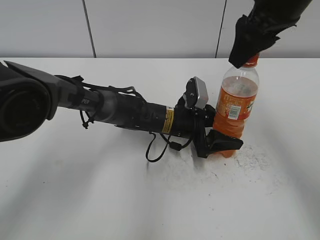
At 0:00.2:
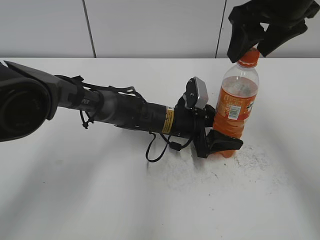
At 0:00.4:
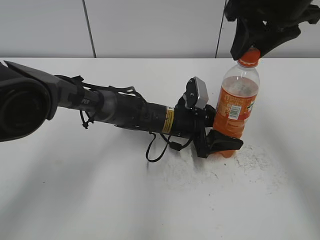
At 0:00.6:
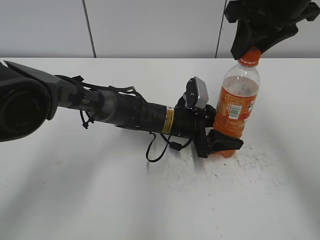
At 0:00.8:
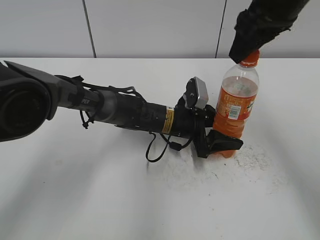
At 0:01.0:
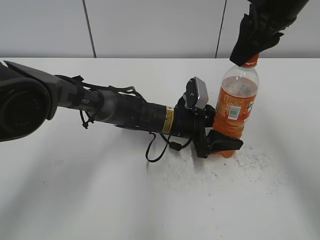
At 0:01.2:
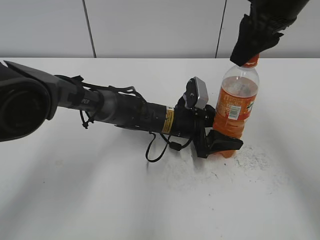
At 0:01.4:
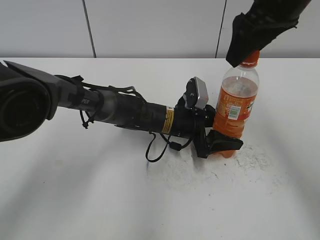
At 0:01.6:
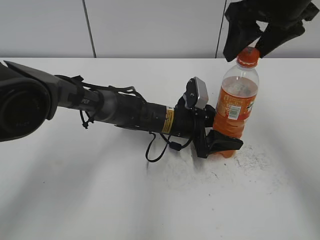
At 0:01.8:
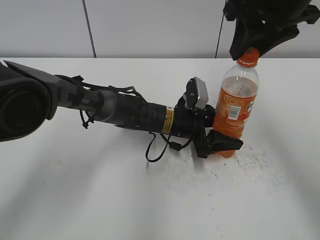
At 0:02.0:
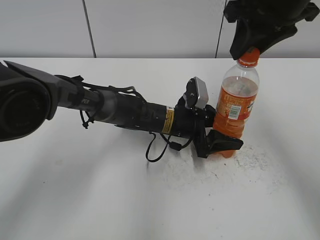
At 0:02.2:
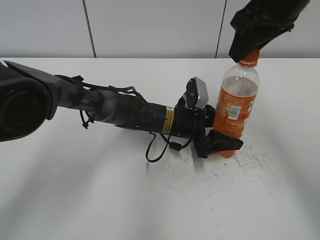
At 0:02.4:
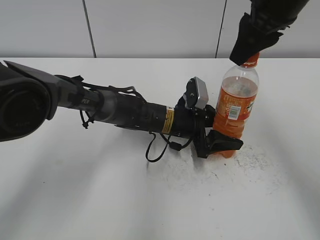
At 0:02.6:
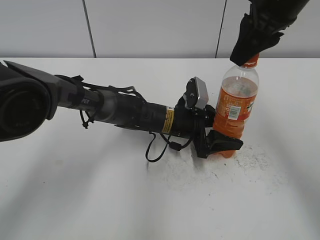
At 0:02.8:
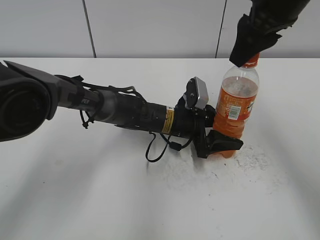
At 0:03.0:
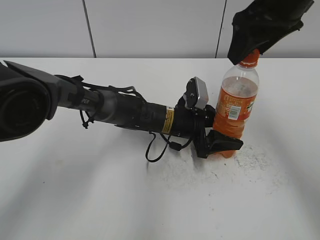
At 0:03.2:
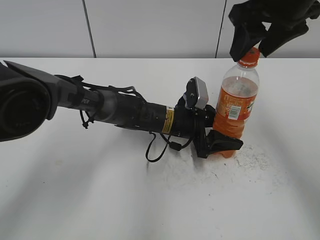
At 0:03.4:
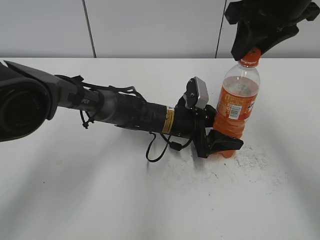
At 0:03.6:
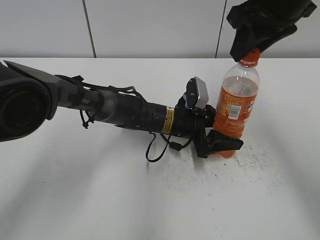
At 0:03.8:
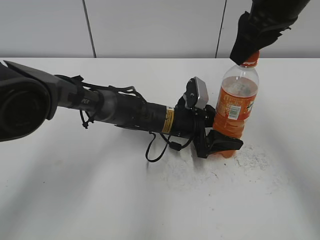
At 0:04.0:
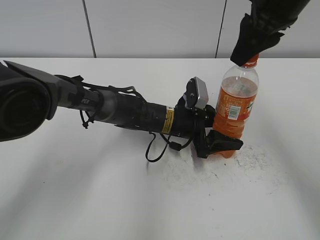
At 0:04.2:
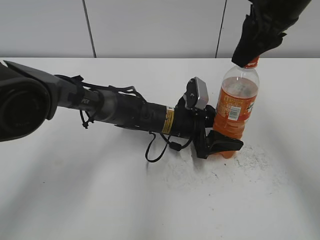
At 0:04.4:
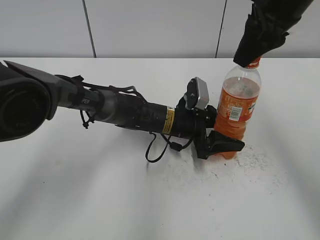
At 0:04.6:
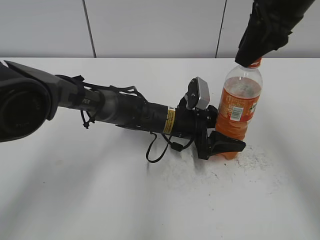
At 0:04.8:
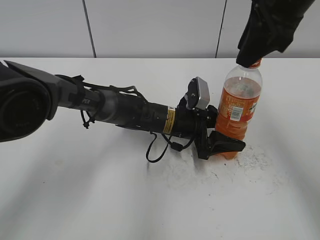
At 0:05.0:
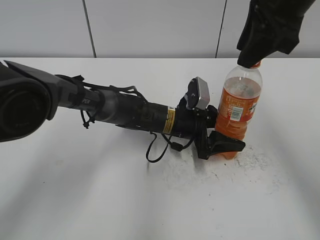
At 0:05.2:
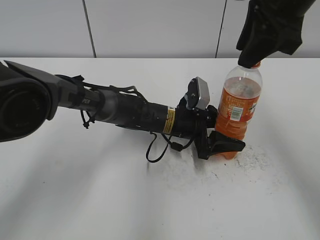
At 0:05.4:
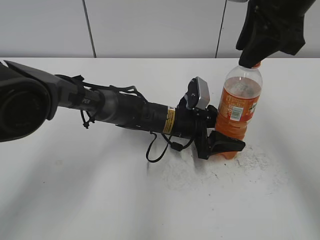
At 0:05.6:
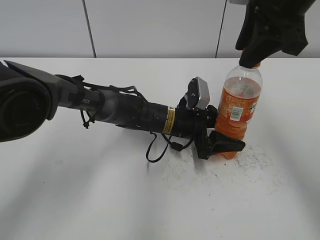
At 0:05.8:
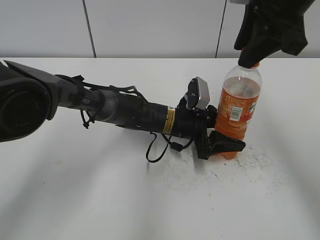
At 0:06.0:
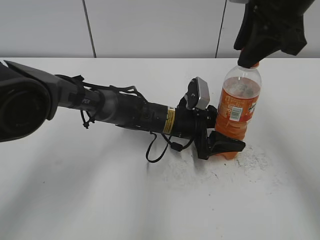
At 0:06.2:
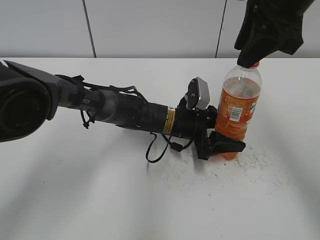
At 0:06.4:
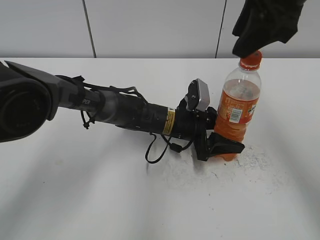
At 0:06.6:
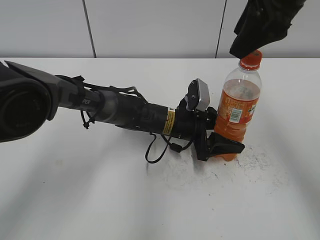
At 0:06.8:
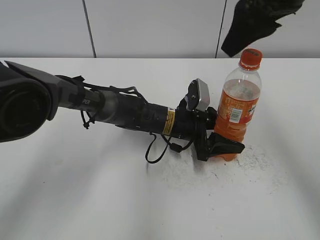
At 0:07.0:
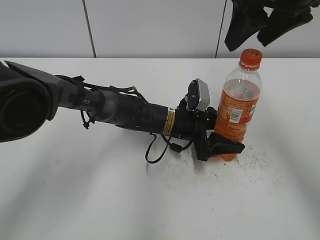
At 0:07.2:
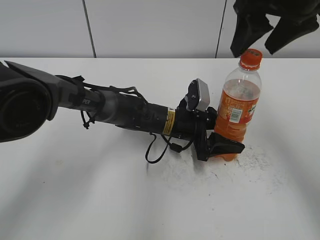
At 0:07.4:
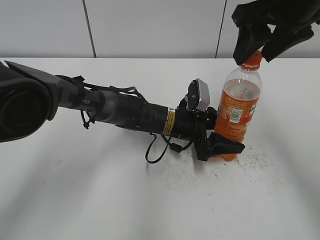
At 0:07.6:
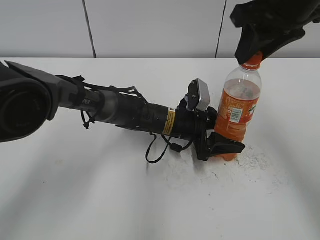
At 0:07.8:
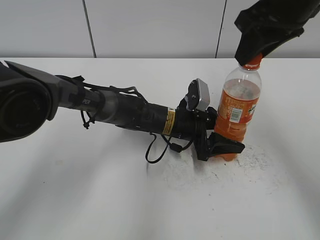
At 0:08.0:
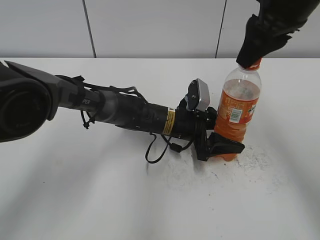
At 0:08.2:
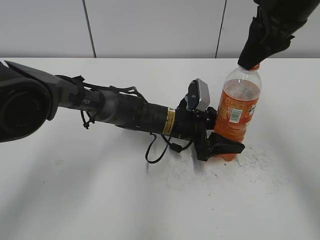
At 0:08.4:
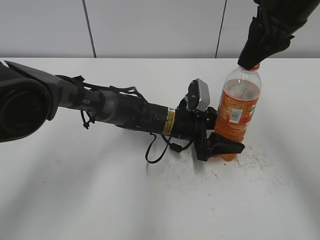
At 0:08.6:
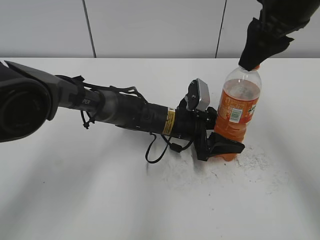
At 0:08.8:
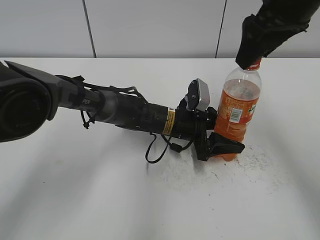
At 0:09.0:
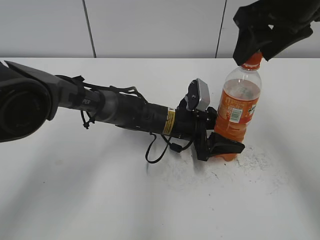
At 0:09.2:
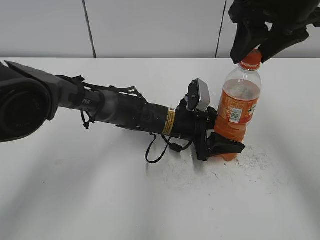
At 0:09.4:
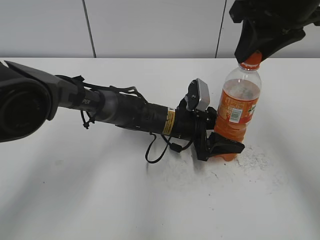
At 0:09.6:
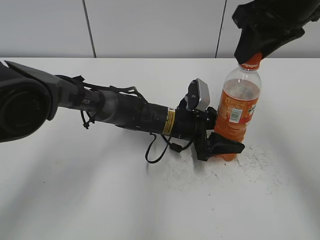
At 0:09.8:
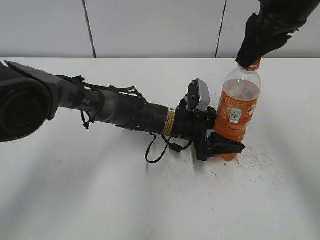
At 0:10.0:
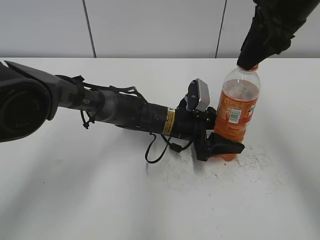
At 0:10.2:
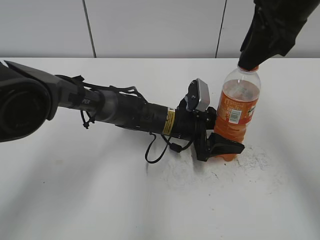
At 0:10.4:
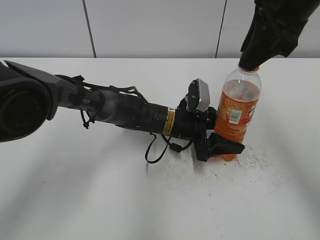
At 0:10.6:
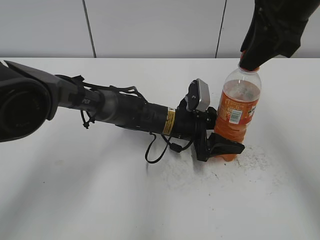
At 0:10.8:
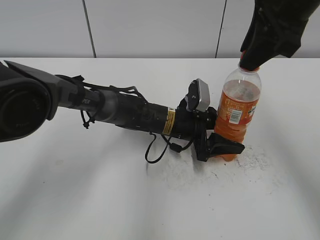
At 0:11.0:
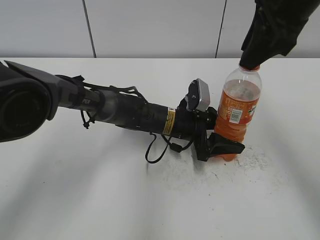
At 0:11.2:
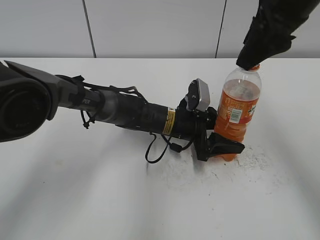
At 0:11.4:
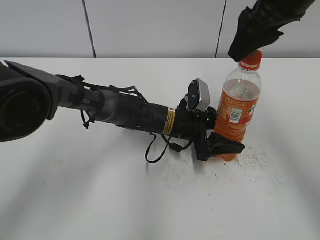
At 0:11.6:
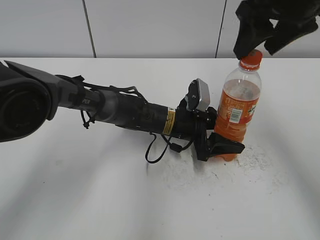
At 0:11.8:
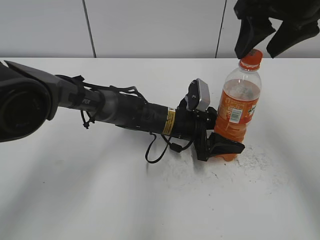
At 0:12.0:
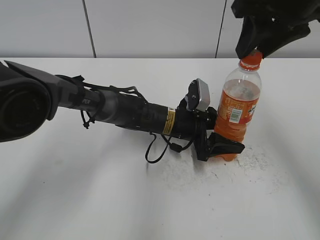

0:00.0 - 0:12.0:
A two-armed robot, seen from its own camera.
0:00.0 - 0:01.6: The right gripper closes and opens again.
0:01.6 - 0:03.0: The right gripper closes, then opens again.
0:03.0 - 0:04.4: The right gripper closes.
0:06.0 - 0:07.6: The right gripper opens and closes again.
0:07.6 - 0:09.0: The right gripper opens up.
0:09.0 - 0:10.4: The right gripper closes.
0:10.4 - 0:12.0: The right gripper opens its fingers.

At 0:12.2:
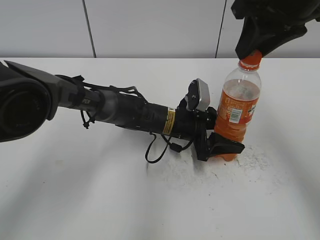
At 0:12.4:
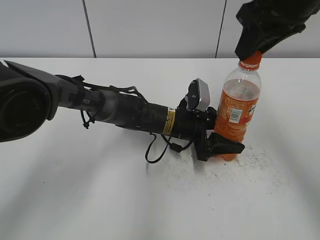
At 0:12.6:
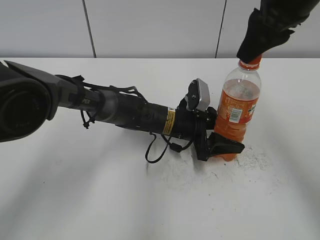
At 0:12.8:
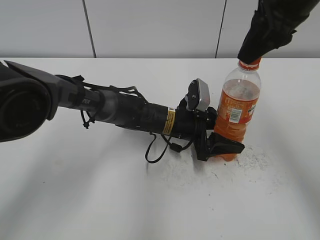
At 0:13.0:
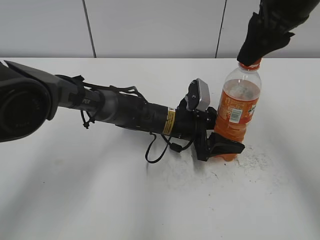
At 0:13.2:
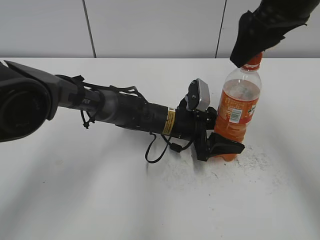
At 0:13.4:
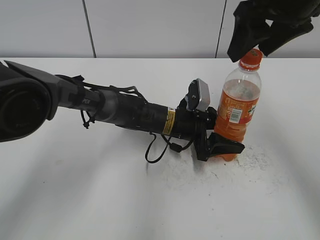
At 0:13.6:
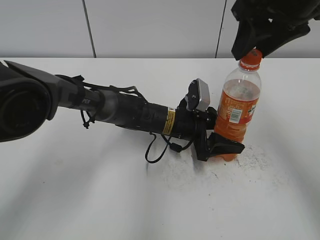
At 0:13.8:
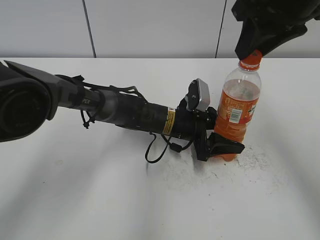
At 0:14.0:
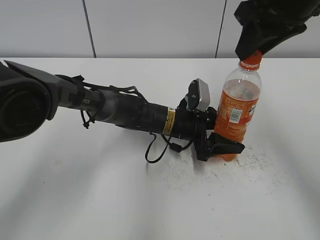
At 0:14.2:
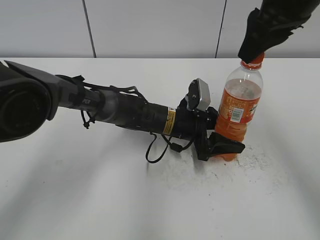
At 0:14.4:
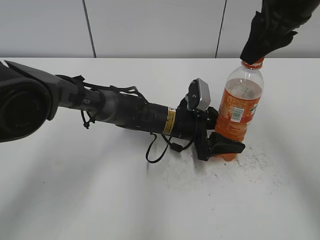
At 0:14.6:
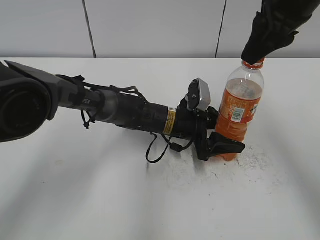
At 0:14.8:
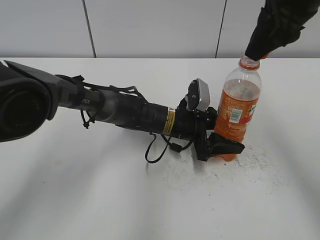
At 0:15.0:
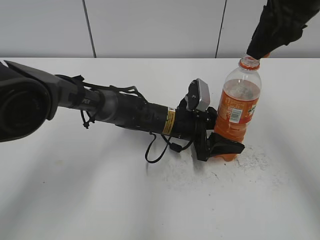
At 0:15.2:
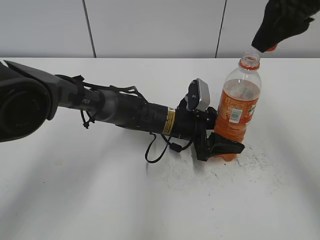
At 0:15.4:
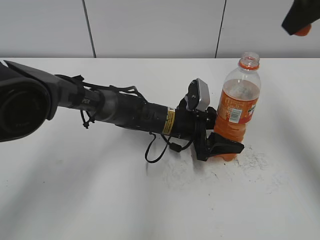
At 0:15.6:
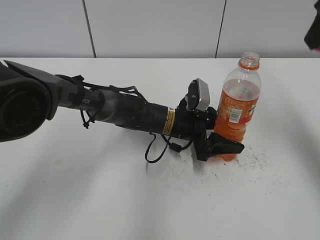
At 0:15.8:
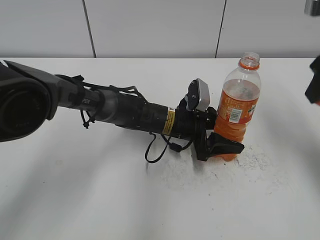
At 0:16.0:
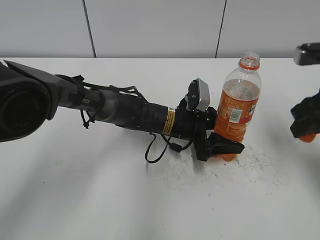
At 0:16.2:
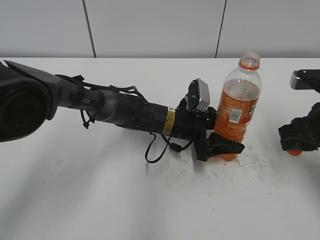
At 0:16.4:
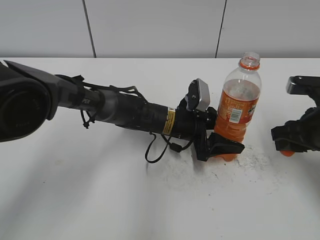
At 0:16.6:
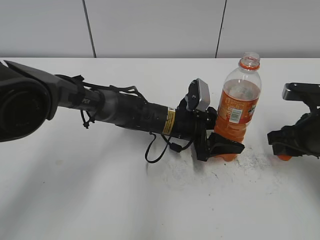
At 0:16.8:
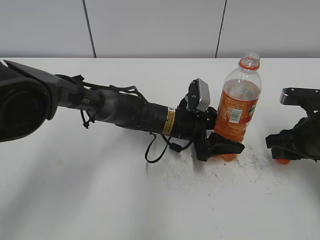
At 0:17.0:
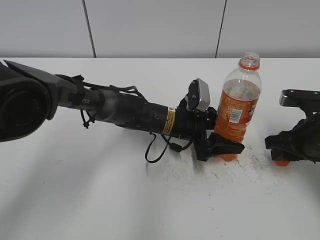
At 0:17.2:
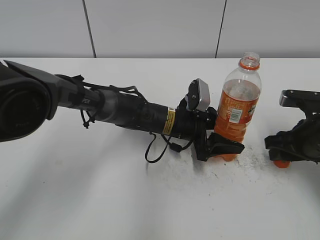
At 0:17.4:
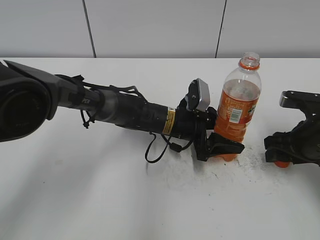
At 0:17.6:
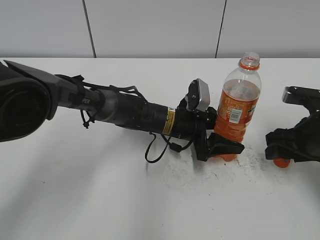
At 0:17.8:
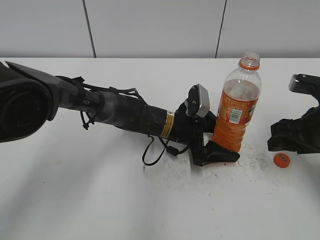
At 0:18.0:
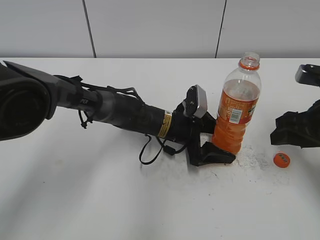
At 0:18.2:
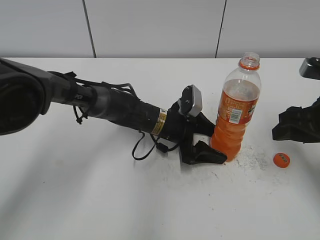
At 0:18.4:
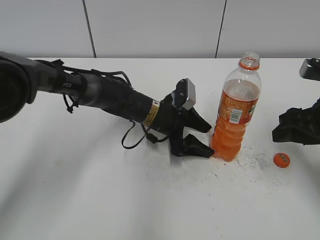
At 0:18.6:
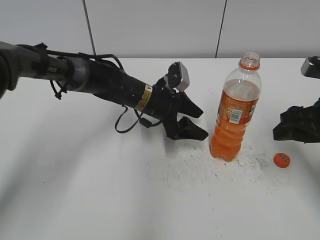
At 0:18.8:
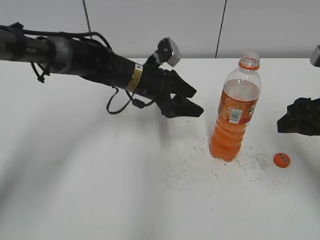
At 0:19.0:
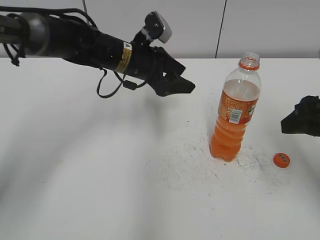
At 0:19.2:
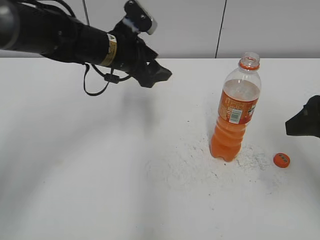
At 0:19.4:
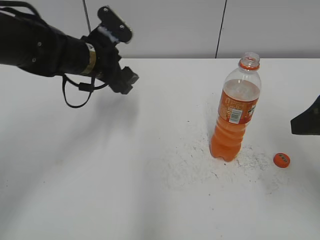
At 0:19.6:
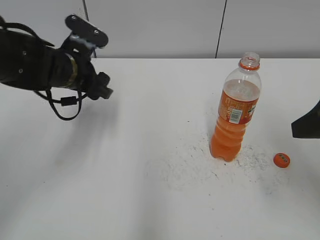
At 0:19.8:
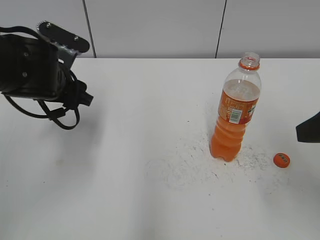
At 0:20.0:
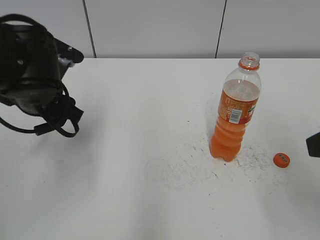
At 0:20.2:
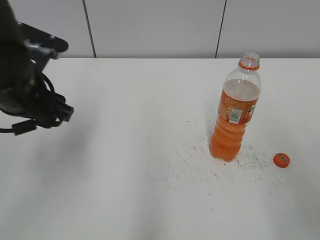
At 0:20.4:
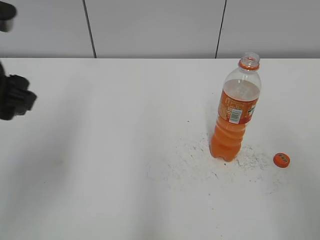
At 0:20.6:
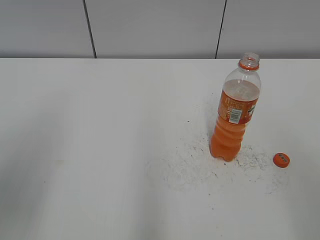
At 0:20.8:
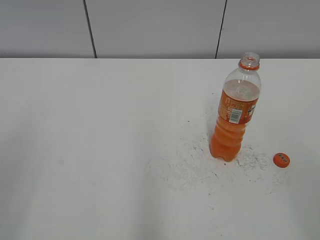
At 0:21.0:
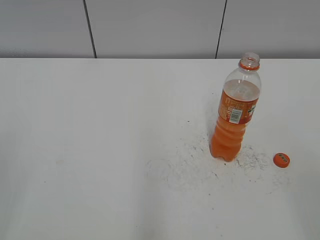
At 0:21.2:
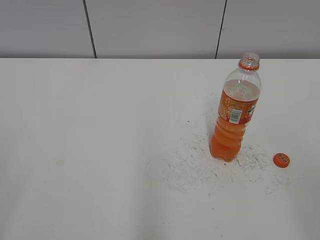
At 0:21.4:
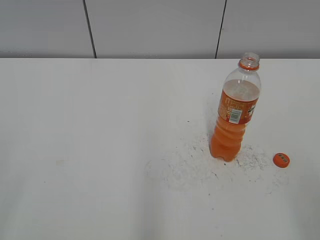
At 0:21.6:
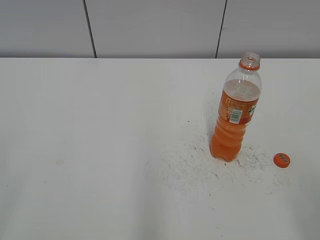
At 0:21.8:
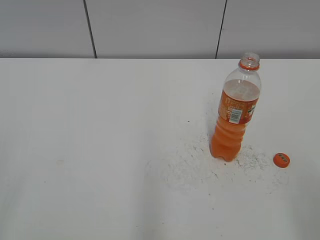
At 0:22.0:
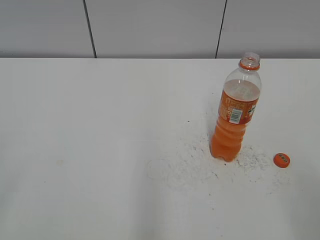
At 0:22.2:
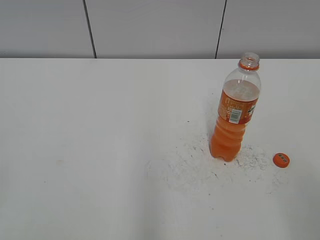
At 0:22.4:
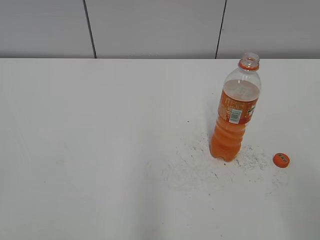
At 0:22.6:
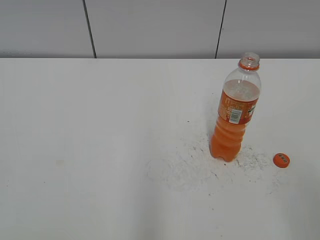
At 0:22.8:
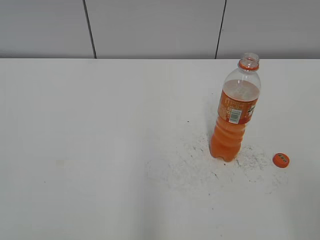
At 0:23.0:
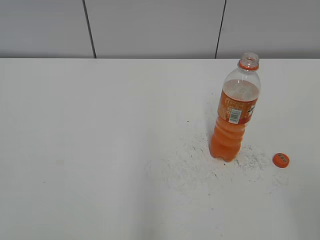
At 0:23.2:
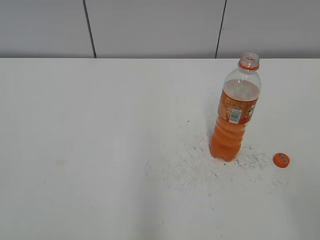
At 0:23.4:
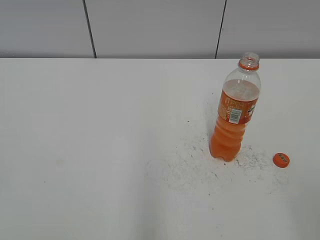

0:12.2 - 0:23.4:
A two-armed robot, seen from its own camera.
Step, 0:12.2 - 0:14.8: Twist the bottle cap with the right hand.
Step, 0:15.2 - 0:17.6: Place the bottle cap on the table with the right hand.
Step, 0:17.8 - 0:18.2: Place the Mirinda with the left hand.
0:13.8 - 0:15.4: The right gripper shifts by some 5 cm.
0:15.4 - 0:17.0: The right gripper moves downward, approximately 25 cm.
0:17.0 - 0:18.6: The left gripper ends up about 5 cm from where it was, and opens its fingers. Meanwhile the right gripper travels upward by roughly 5 cm, and opens its fingers.
0:18.6 - 0:20.2: The right gripper shifts about 15 cm backward and upward, while the left gripper is displaced to the left, upward and backward by about 25 cm, and closes.
0:20.2 - 0:21.8: The left gripper is displaced backward and to the left by roughly 30 cm.
